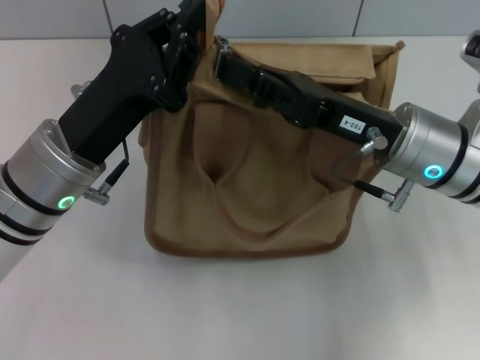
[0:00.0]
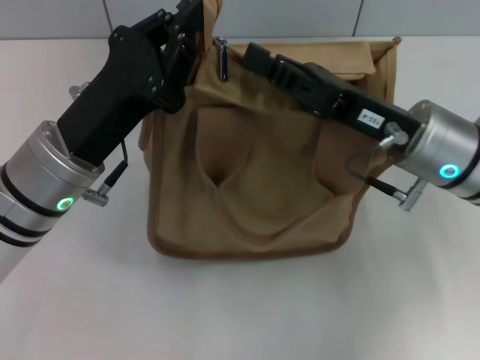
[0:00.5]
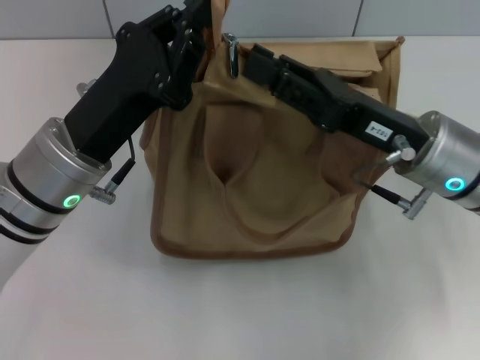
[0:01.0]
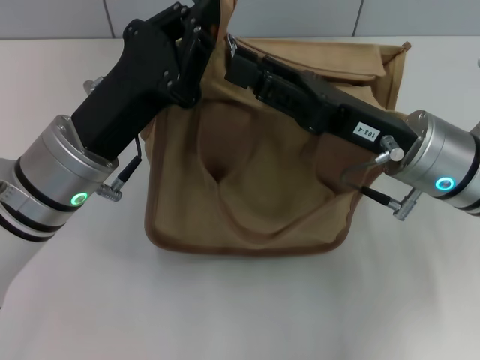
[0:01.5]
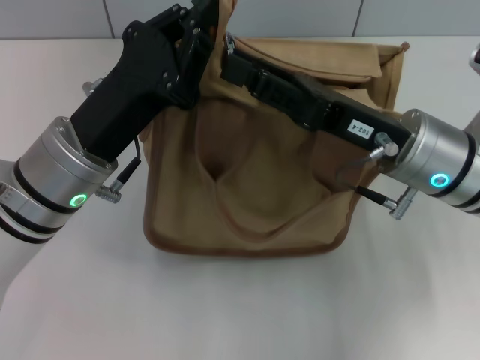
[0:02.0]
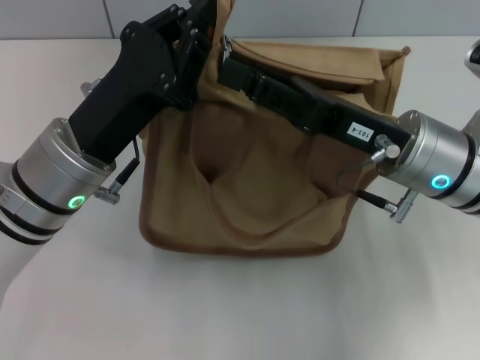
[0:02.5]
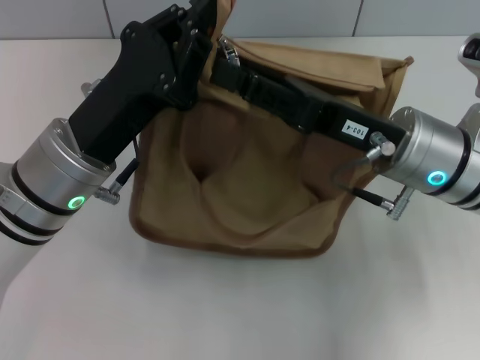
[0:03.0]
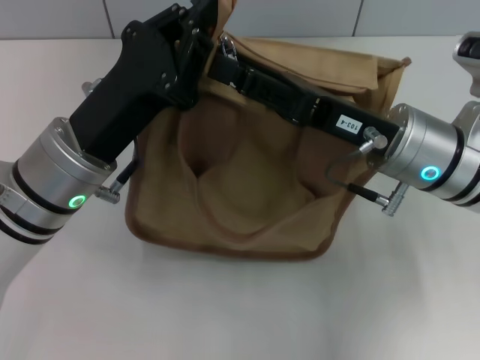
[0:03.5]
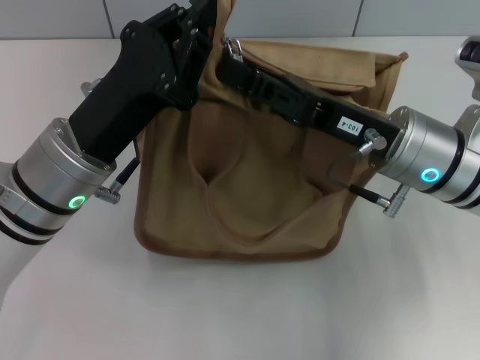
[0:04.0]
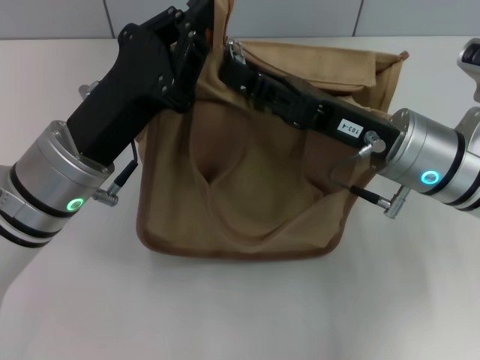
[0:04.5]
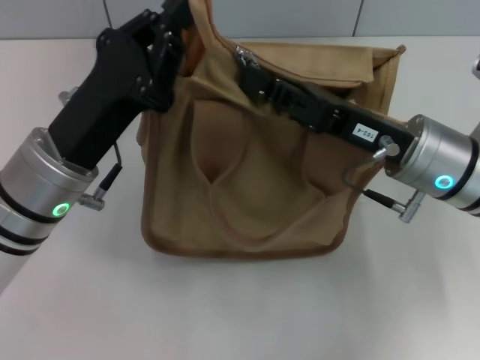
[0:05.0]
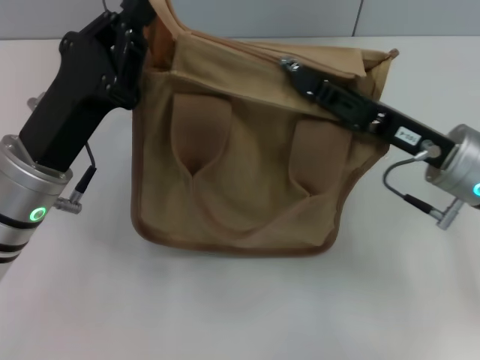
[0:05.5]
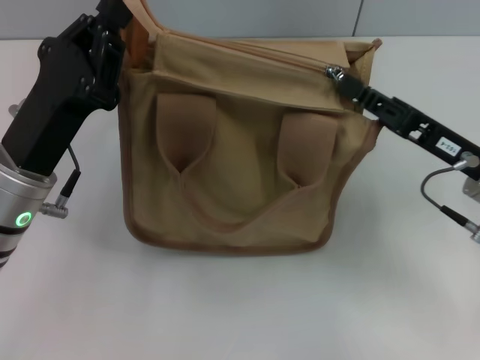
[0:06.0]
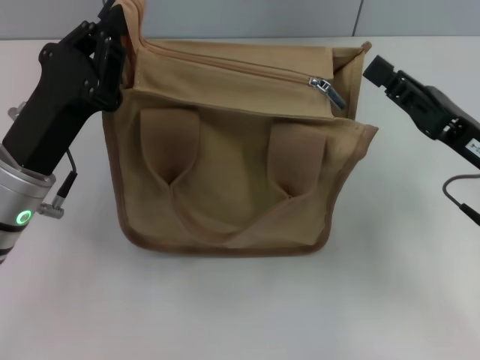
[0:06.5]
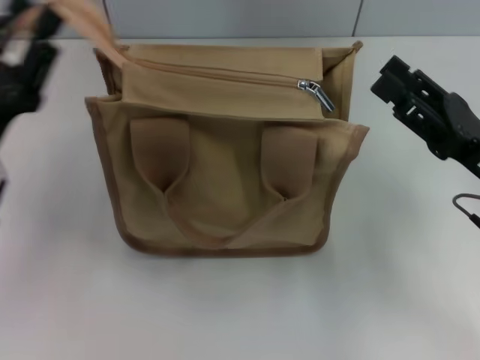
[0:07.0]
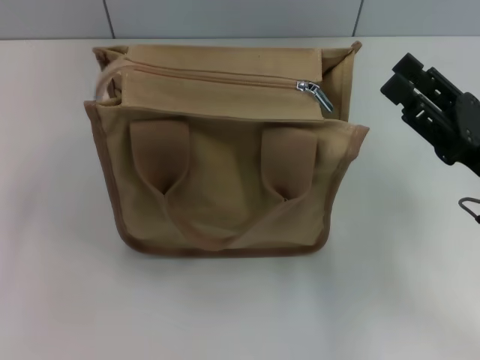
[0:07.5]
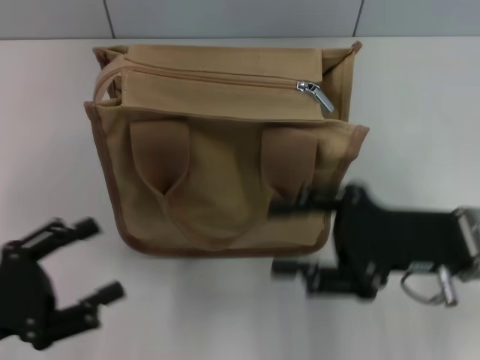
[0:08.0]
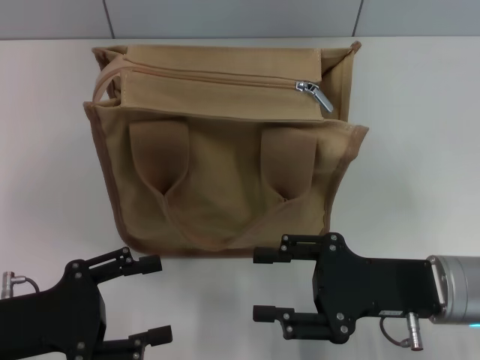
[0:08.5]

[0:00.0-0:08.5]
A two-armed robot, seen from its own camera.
Step, 0:00.0 to 0:06.0: Pull up the zipper with your right hand.
Step, 0:06.5 to 0:07.0: Grab the zipper with your left hand.
0:00.0 to 0:02.0: The right gripper opens.
0:02.0 to 0:04.0: The two grippers keep their place.
0:04.0 to 0:06.5: The left gripper moves roughly 5 cm; the right gripper goes roughly 10 cm to the right, and closes.
0:06.5 to 0:08.5: The right gripper moves to the left, approximately 5 cm, and opens up; the left gripper moves backward and to the left, approximately 10 cm, and opens.

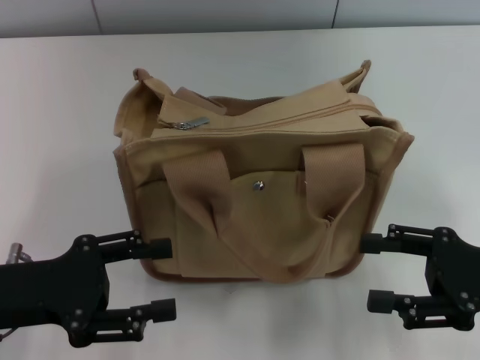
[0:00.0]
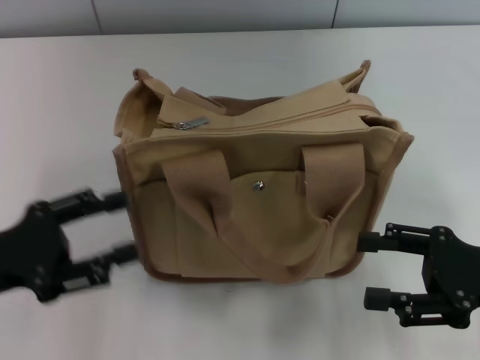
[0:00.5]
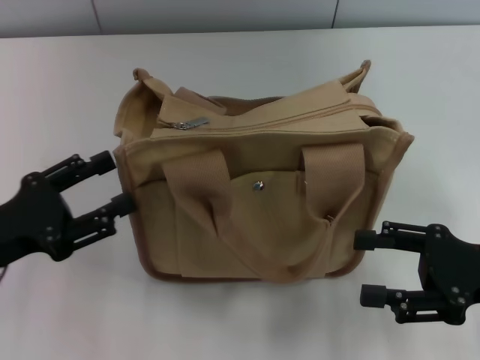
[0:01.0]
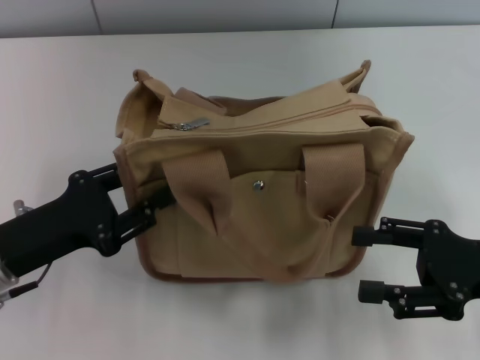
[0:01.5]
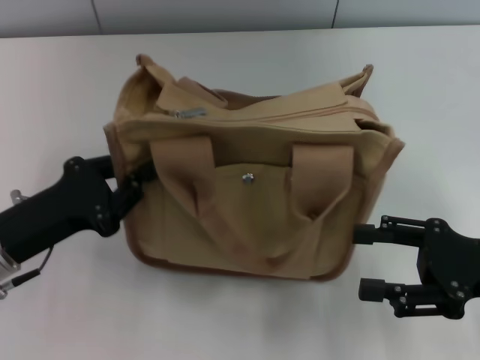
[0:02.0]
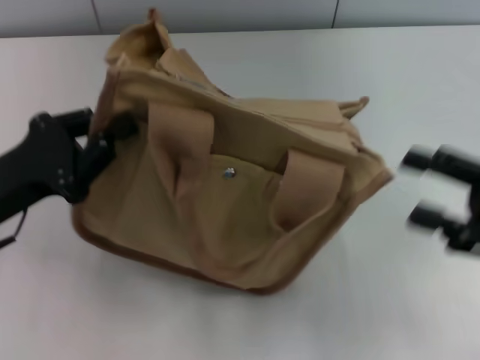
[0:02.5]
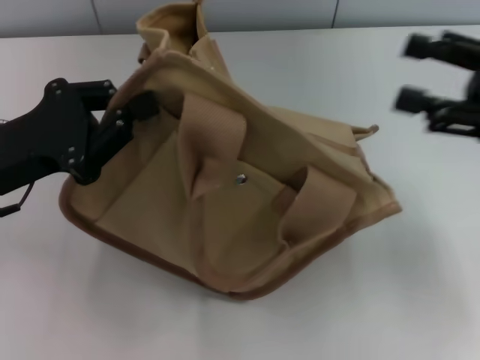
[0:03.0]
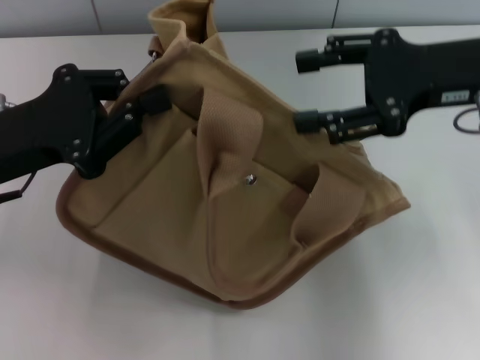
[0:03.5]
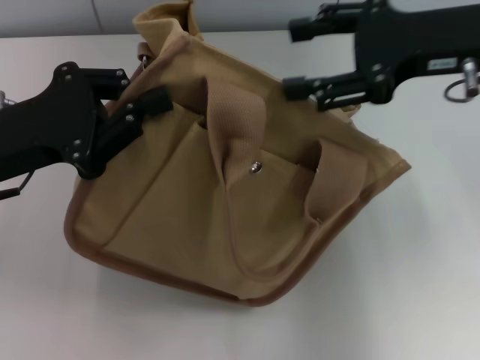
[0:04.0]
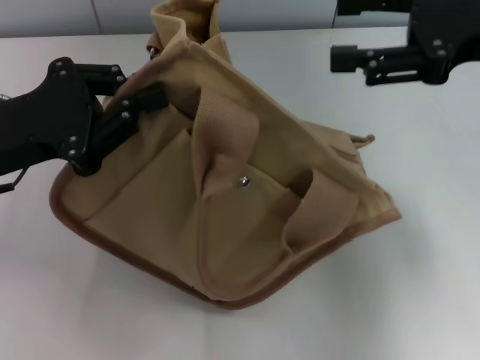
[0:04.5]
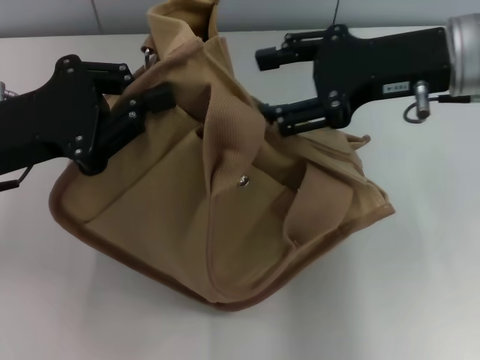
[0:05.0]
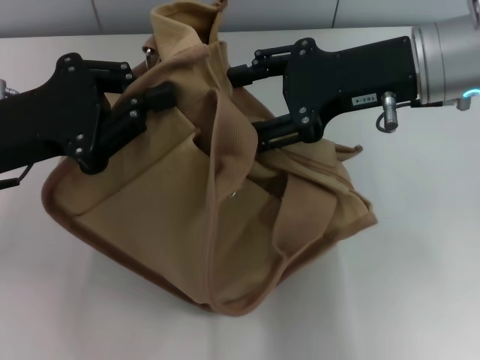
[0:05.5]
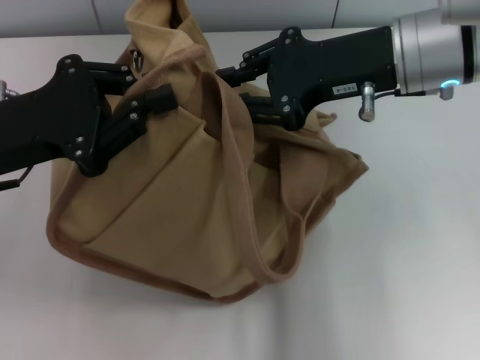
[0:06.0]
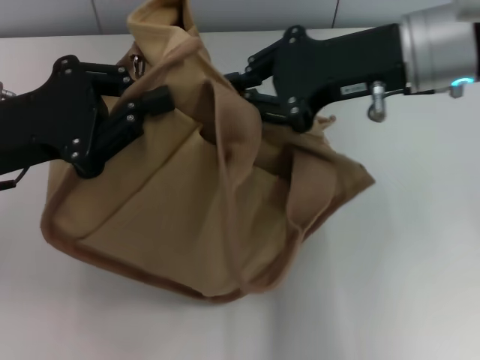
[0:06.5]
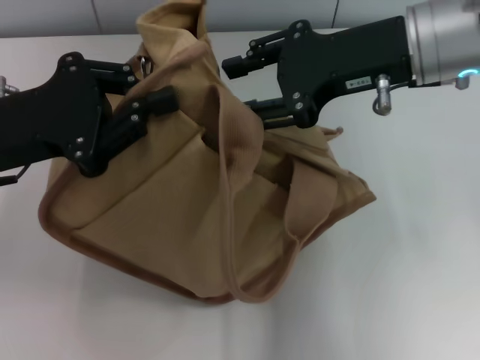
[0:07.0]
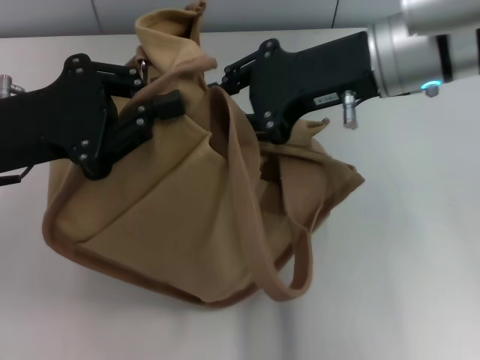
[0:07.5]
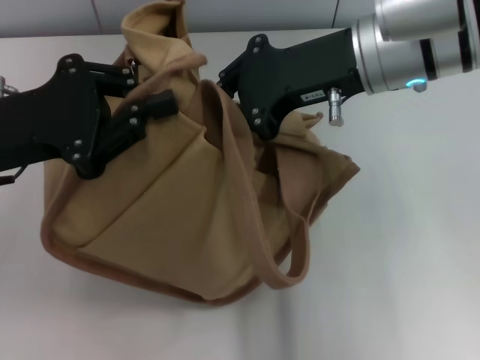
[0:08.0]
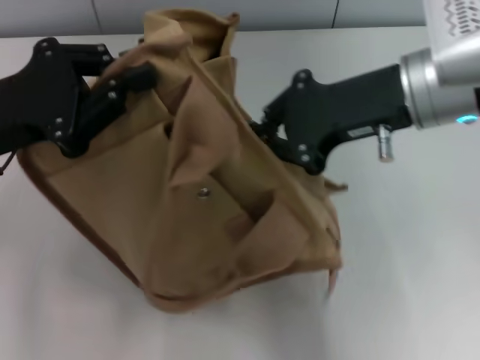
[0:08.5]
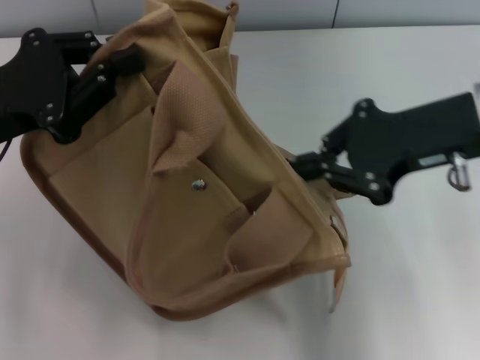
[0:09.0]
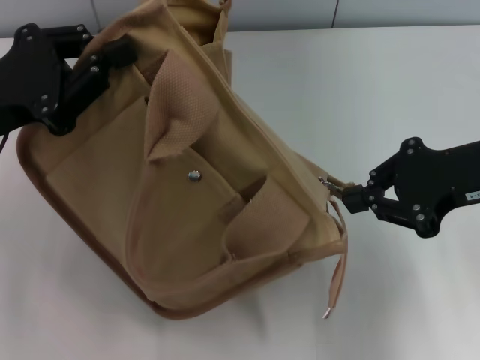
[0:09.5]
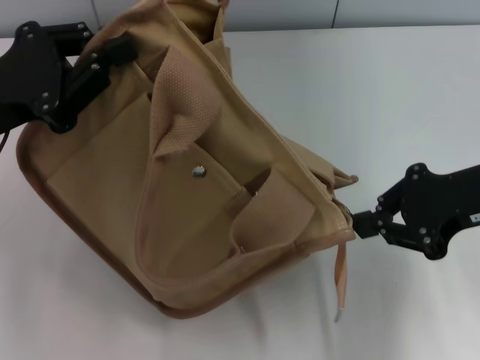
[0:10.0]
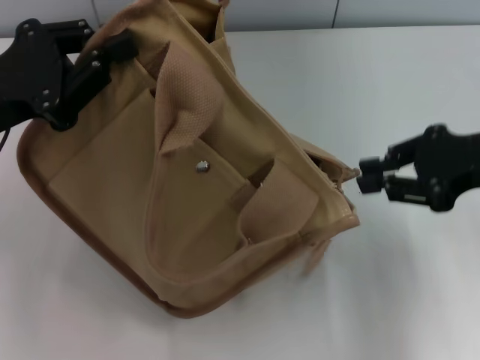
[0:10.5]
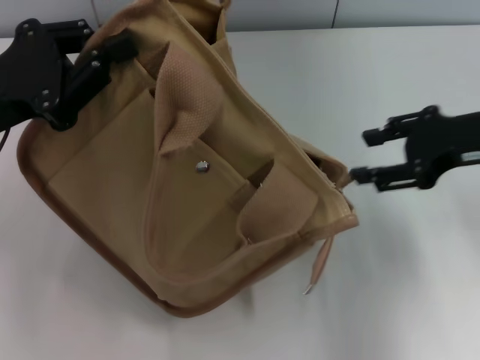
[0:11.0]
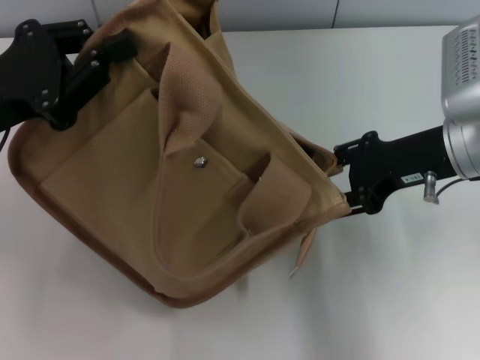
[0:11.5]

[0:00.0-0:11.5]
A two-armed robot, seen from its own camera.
Step, 0:00.0 to 0:11.0: Pull open the zipper with your right hand.
0:00.0 to 0:02.0: The left gripper closes up.
0:02.0 to 0:04.0: The left gripper is displaced upward by some 10 cm. The right gripper is displaced upward, forward and to the left by about 20 cm.
0:04.0 to 0:06.0: The right gripper goes about 5 cm to the left, and closes its fingers.
0:06.0 to 0:07.5: The right gripper closes, then opens again.
0:07.5 to 0:09.5: The right gripper shifts some 15 cm to the right and backward, and closes up.
0:09.5 to 0:11.5: The right gripper ends up some 5 cm from where it was, and opens its fingers.

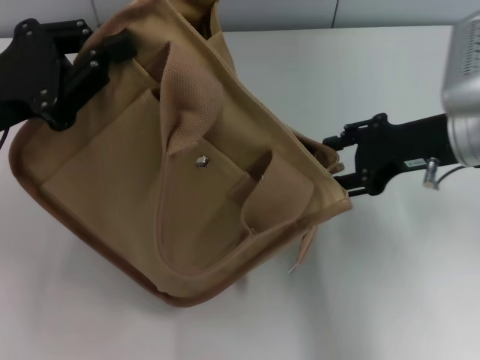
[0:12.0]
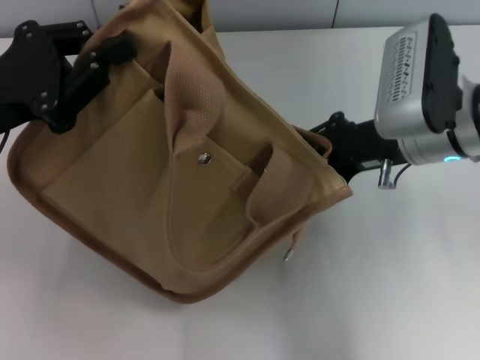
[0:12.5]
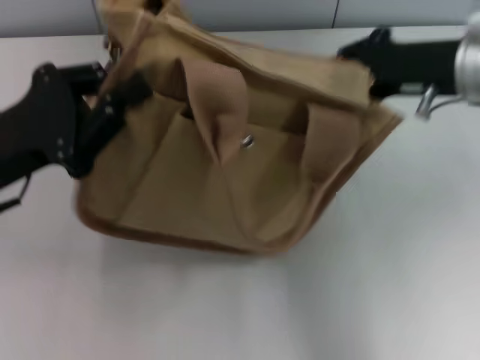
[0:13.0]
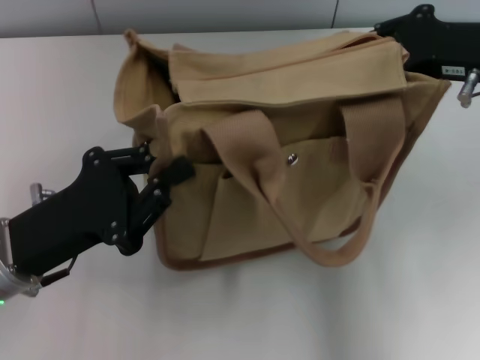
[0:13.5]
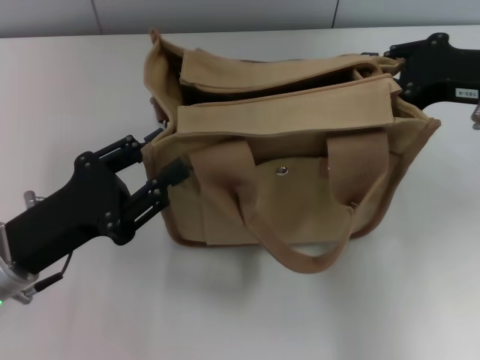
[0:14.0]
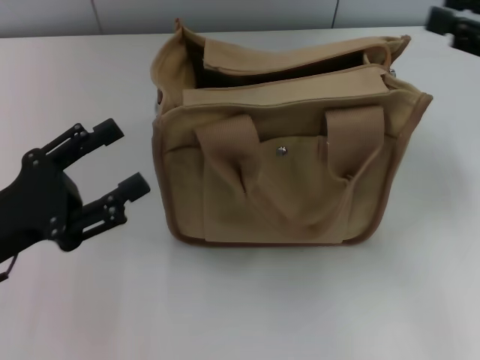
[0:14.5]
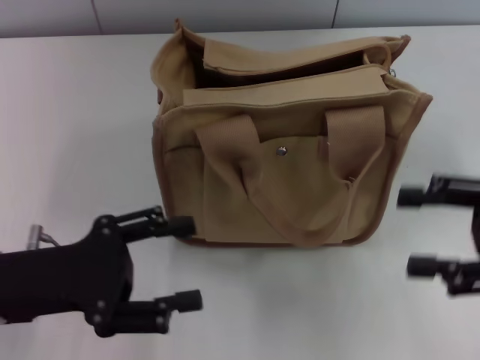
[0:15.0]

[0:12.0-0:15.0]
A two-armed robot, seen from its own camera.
Step, 0:12.0 to 0:14.0: Grab the bag with your left hand.
0:12.0 to 0:13.5: The left gripper shifts some 10 cm downward and backward; the right gripper shifts about 5 cm upward, and closes up.
0:13.5 to 0:15.0: The left gripper opens up. The right gripper heads backward, to the right and downward, covering about 15 cm, and opens its fingers.
